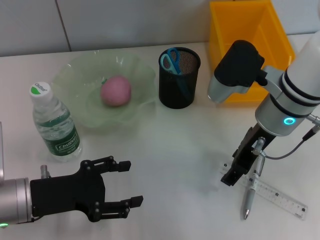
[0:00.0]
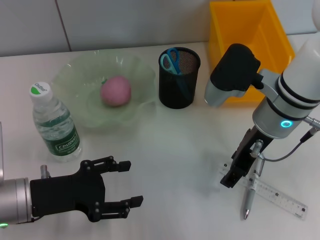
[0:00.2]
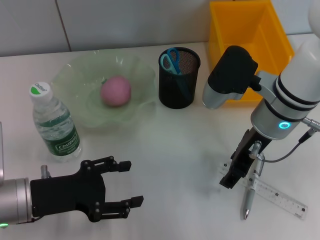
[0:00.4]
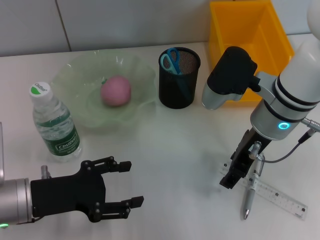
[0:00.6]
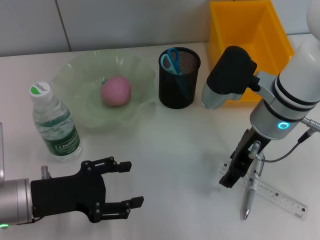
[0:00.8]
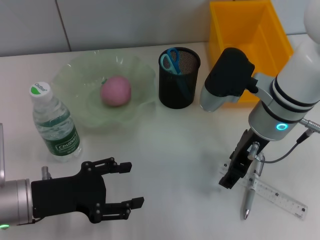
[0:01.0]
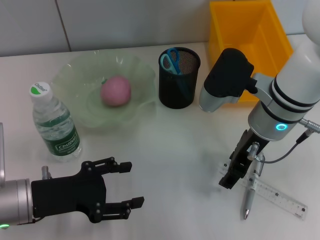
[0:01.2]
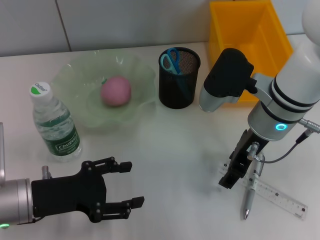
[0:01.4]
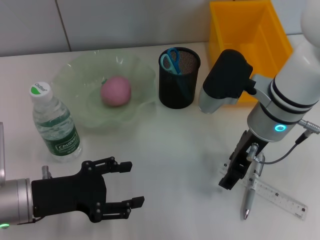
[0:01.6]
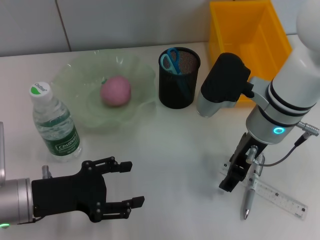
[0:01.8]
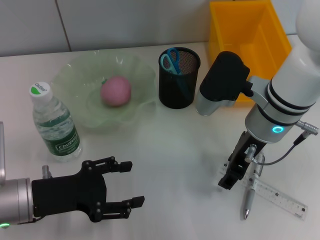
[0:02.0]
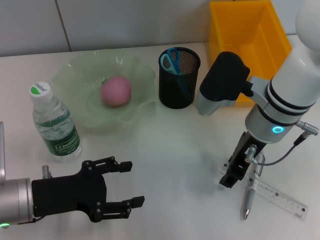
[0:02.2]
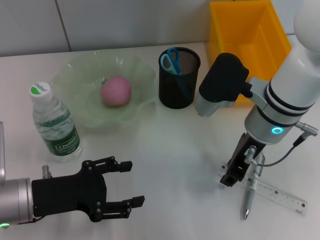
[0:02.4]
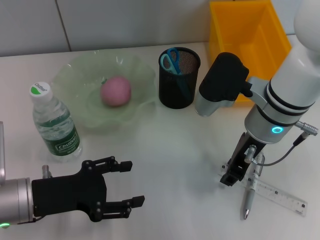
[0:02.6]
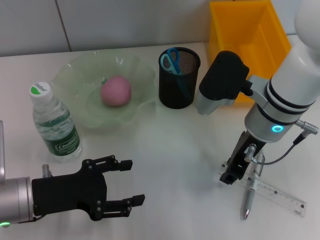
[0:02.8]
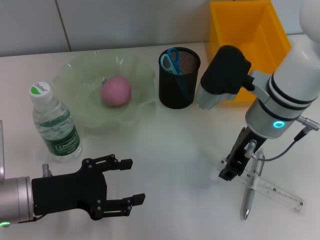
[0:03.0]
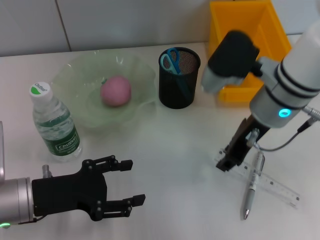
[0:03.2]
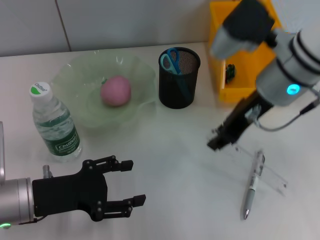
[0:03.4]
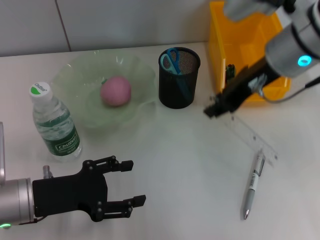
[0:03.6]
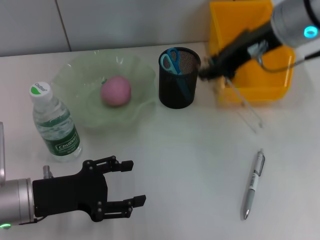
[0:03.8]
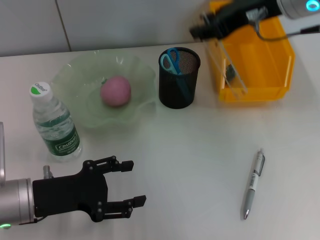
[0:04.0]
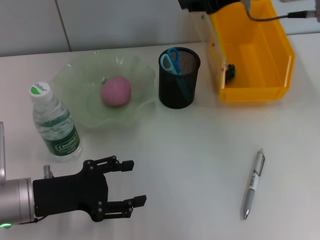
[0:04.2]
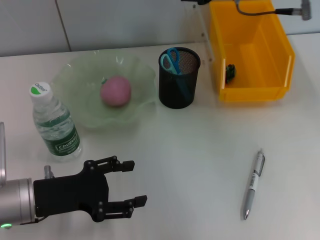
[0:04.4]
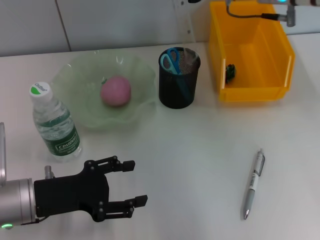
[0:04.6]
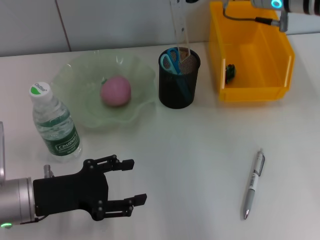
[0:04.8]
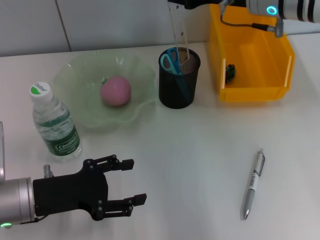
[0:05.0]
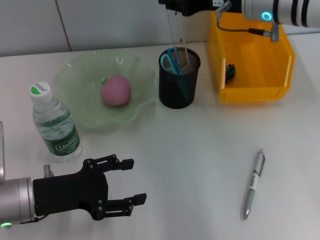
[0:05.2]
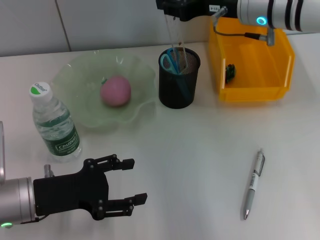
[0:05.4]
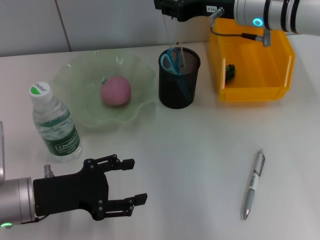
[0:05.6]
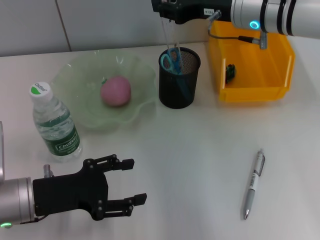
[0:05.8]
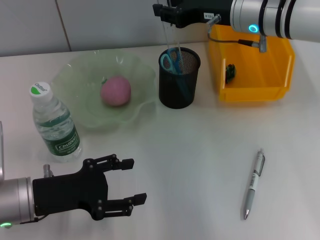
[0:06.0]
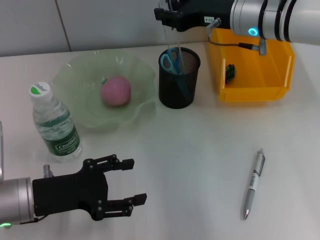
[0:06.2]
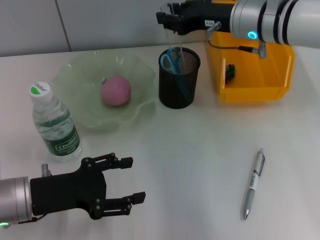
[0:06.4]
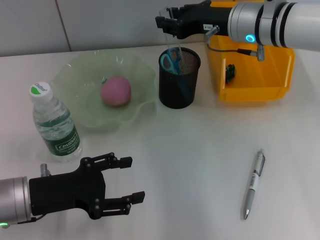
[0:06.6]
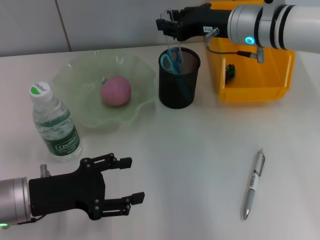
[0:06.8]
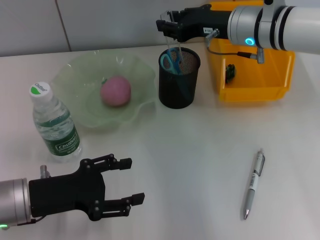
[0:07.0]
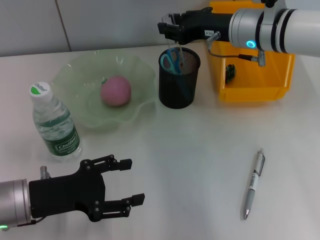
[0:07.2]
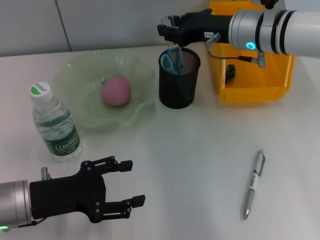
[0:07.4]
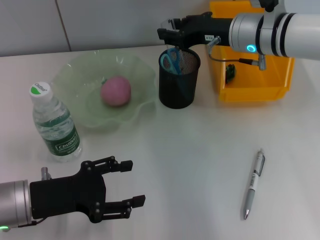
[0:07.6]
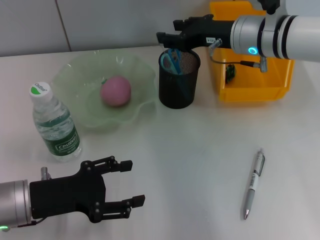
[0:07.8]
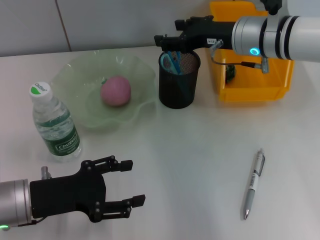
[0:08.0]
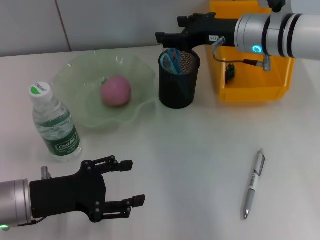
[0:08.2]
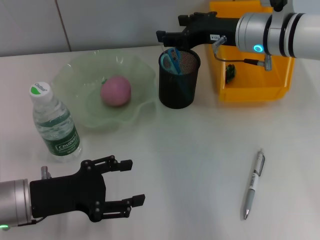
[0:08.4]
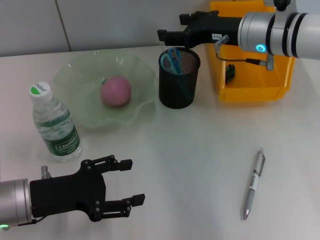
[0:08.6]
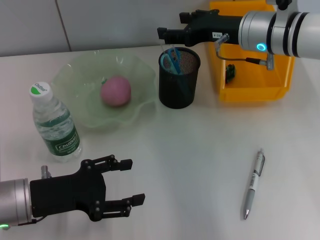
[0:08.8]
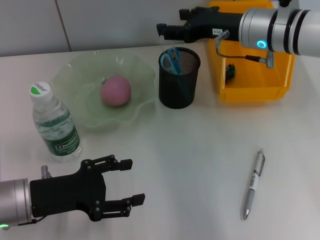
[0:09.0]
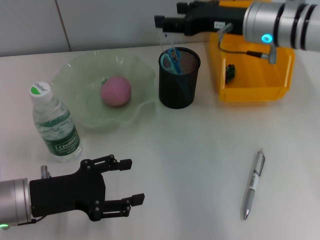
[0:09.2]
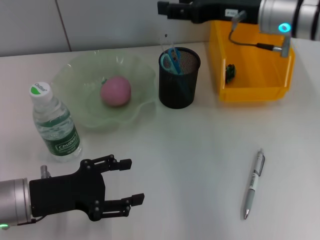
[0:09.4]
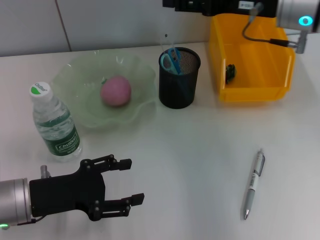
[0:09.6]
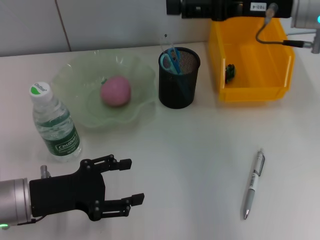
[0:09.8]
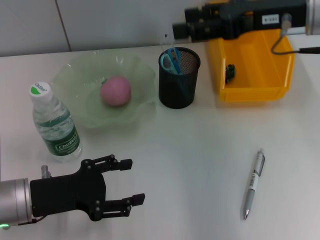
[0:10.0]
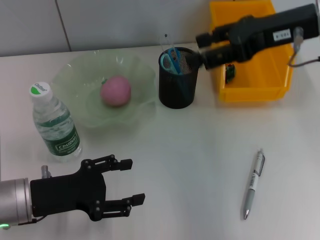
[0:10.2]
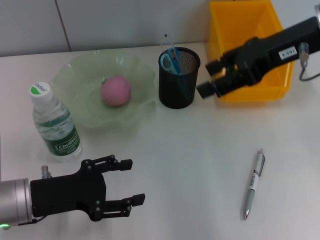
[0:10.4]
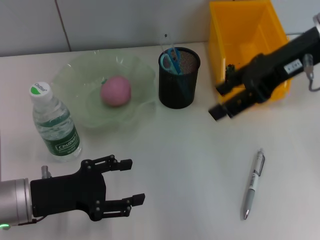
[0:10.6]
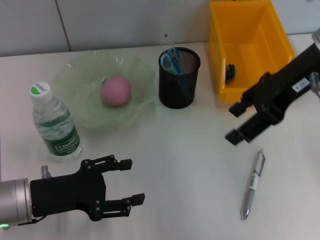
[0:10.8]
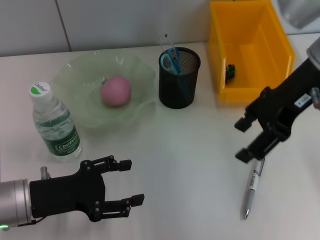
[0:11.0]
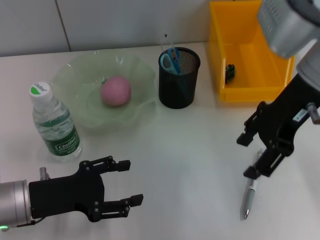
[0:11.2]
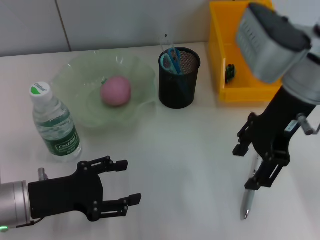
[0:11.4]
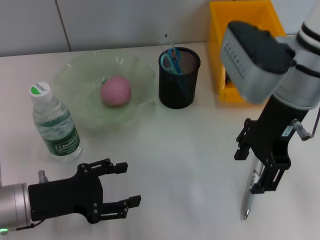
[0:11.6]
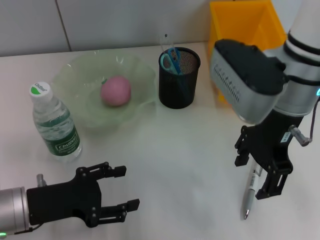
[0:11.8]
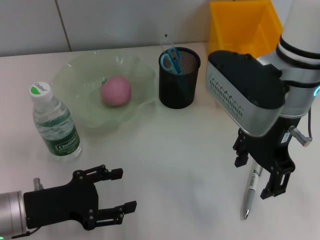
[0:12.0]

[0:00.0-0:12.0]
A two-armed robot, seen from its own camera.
Step, 0:00.0 to 0:02.8: Grab the ruler with the right hand.
Step, 0:03.0 to 0:08.0: Place the ruler into the pen holder with the right hand.
0:00.0 to 0:01.6: There are only small adjustments of the grippers.
0:01.6 to 0:03.0: The two grippers keep their place.
0:03.0 to 0:04.4: The right gripper is displaced upward and forward by some 15 cm.
0:04.4 to 0:06.0: The right gripper moves downward, roughly 10 cm.
0:06.0 to 0:07.6: The grippers make only small movements.
0:07.6 to 0:09.0: The right gripper opens.
0:09.0 to 0:10.4: The right gripper is displaced upward and backward by approximately 10 cm.
0:10.4 to 0:12.0: The right gripper is displaced to the left by about 10 cm.

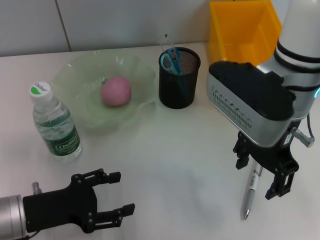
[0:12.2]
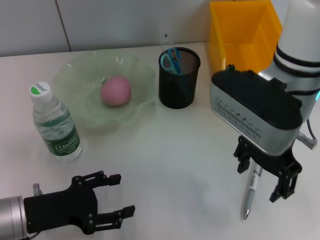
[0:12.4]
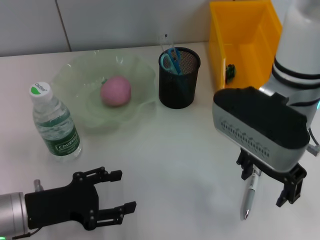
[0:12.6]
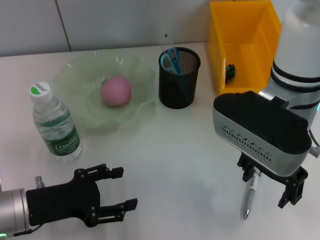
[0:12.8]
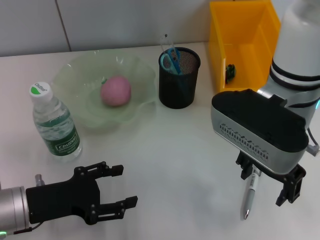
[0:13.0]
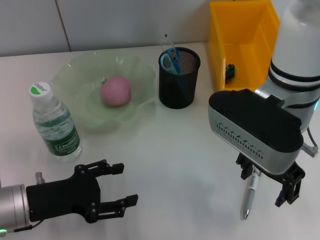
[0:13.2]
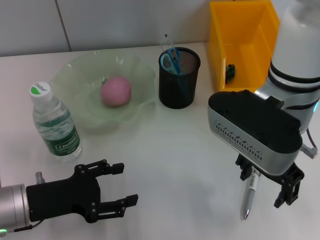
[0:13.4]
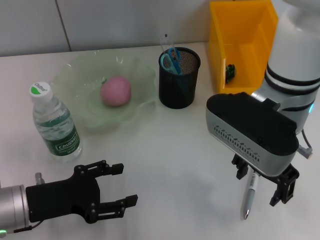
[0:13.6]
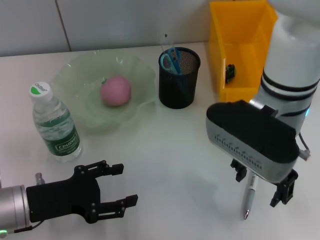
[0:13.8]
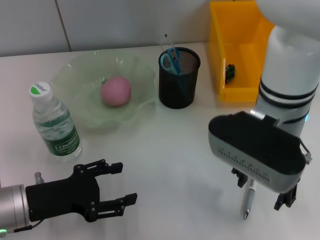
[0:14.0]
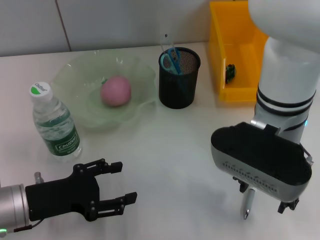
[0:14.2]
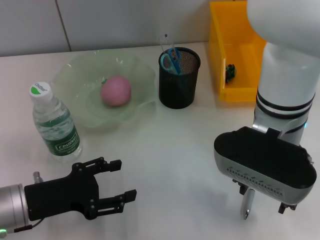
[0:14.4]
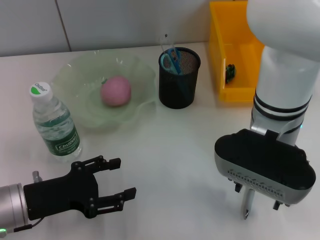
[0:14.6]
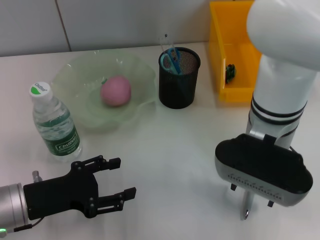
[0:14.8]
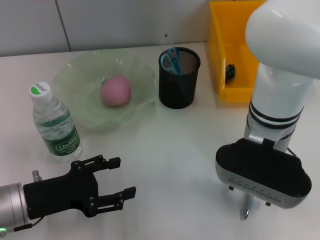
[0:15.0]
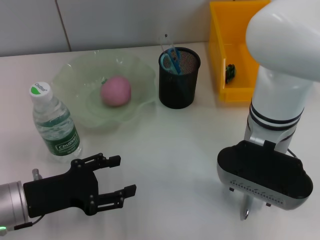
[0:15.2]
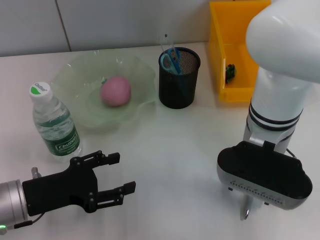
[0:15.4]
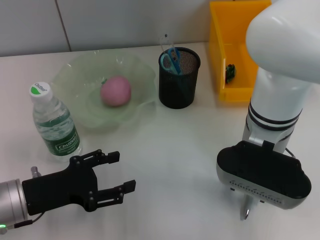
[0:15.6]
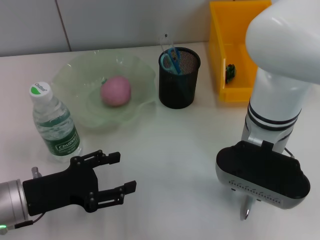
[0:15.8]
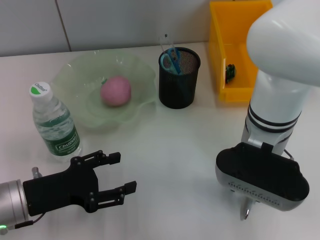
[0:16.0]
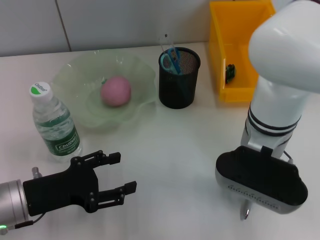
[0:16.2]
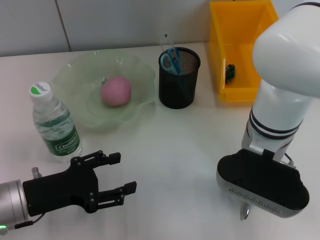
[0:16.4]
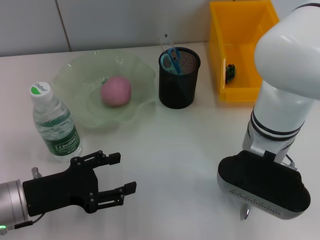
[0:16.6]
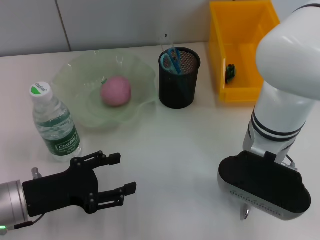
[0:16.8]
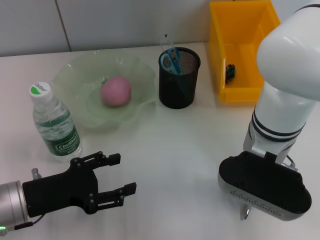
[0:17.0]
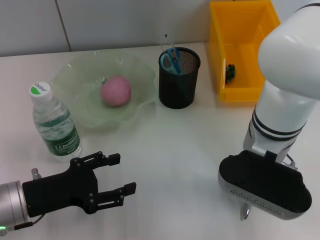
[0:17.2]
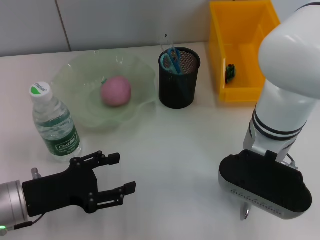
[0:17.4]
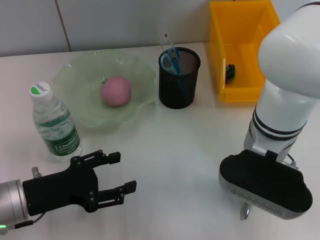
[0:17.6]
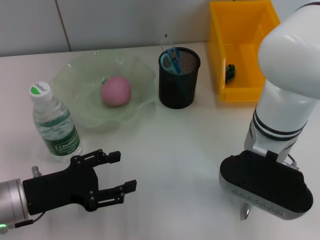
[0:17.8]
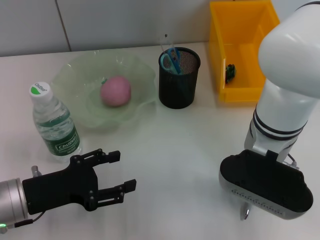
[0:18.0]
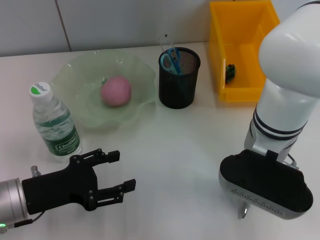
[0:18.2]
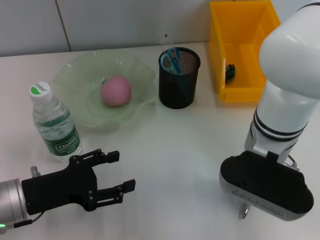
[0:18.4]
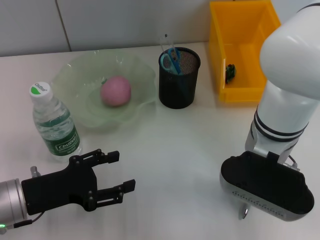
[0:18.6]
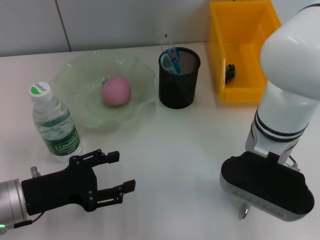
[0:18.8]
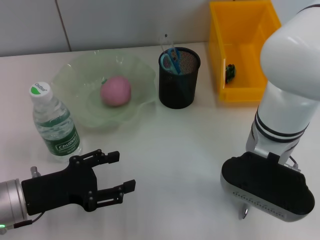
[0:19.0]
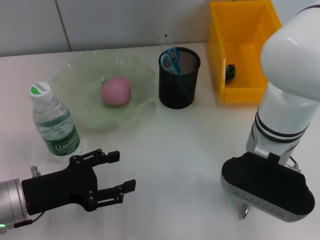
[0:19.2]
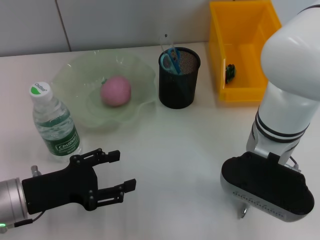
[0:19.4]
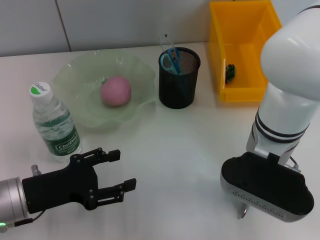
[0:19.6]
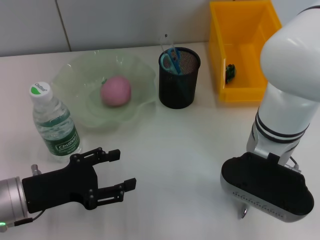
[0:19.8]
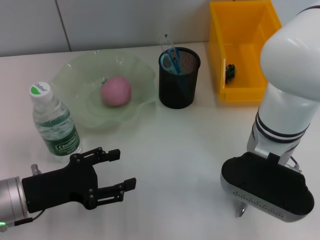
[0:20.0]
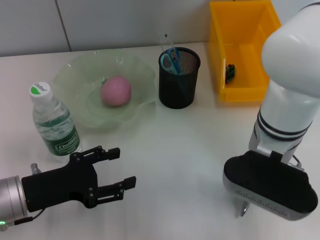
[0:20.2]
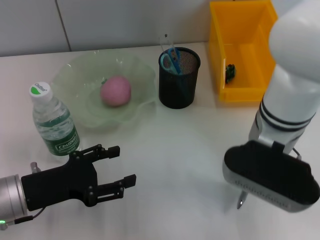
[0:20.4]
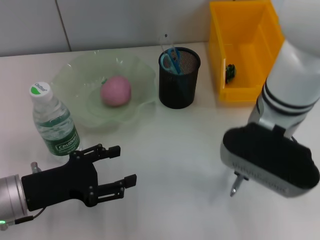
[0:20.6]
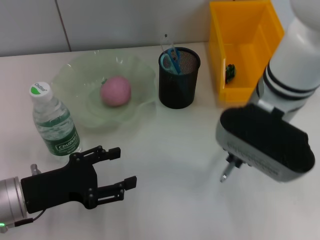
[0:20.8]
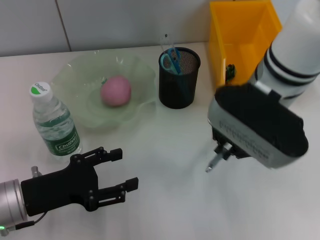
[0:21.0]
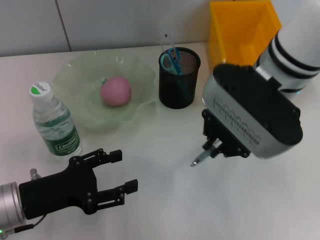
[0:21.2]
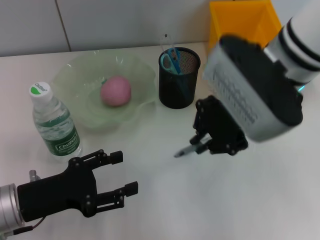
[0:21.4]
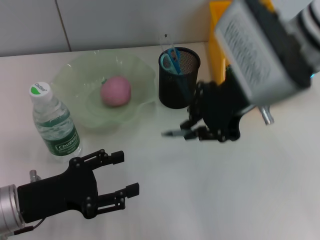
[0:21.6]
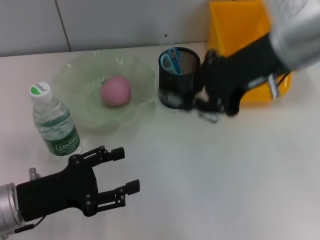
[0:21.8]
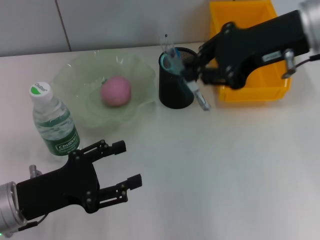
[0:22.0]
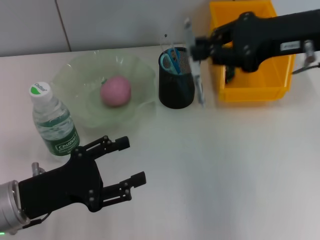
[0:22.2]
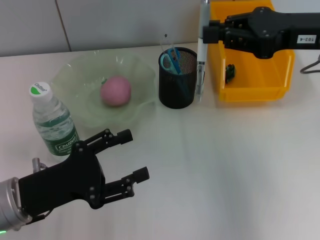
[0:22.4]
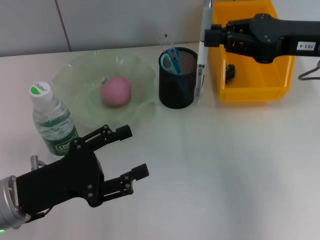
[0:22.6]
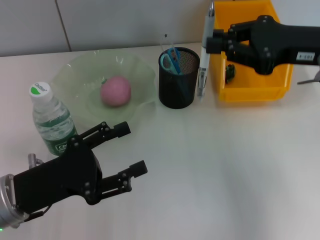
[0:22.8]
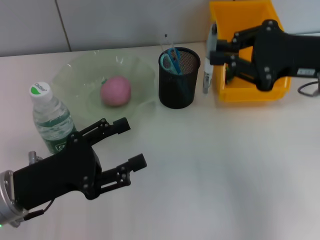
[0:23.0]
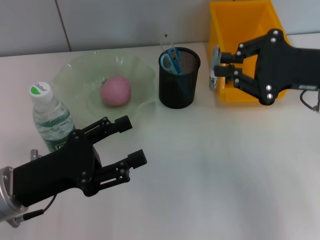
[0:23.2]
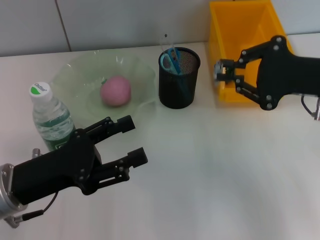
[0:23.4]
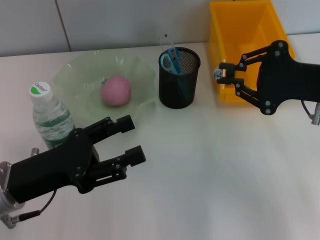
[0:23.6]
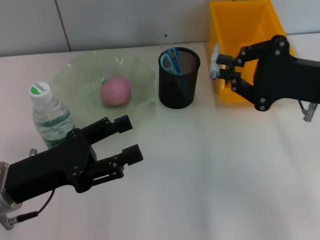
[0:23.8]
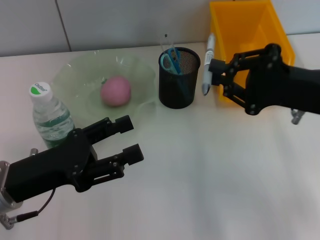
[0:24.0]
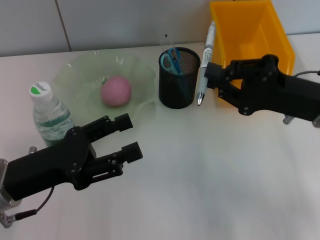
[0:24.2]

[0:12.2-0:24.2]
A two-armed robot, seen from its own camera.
Step, 0:12.2 to 0:19.6: Grab the gray spring-action pen with the right hand.
0:15.2 to 0:16.6: The two grippers keep their place.
0:16.6 to 0:19.8: Both grippers stay about where they are.
0:19.8 to 0:21.2: The right gripper heads upward, covering roughly 10 cm.
0:21.2 to 0:22.6: The right gripper goes approximately 15 cm to the right.
0:22.6 to 0:24.2: The right gripper shifts some 10 cm downward.
